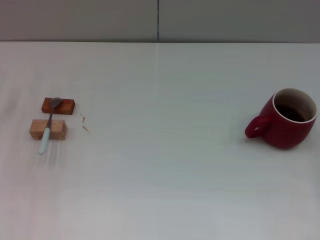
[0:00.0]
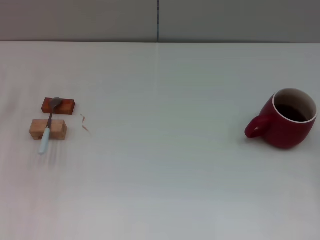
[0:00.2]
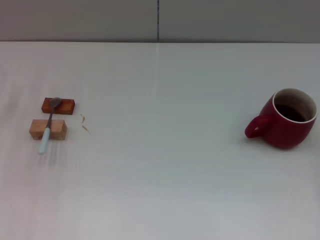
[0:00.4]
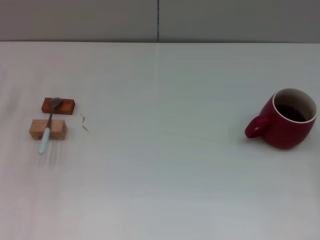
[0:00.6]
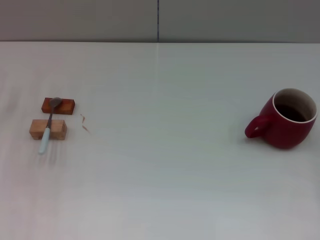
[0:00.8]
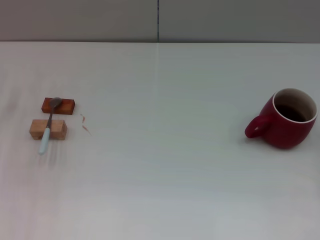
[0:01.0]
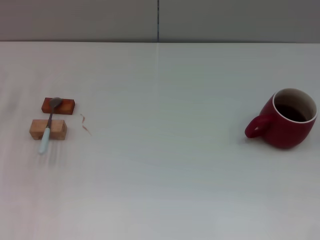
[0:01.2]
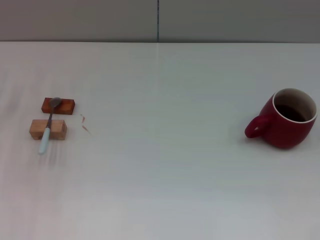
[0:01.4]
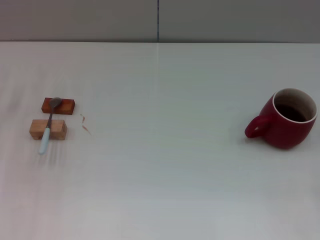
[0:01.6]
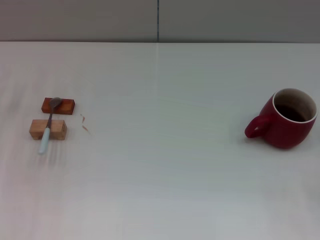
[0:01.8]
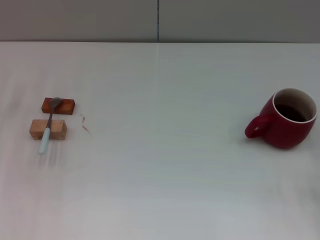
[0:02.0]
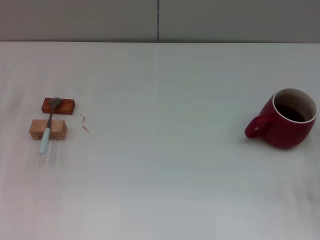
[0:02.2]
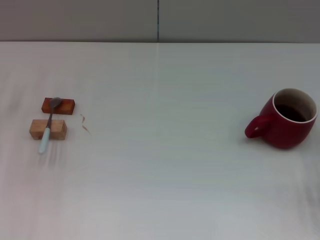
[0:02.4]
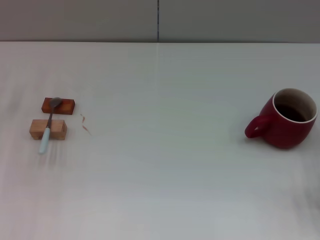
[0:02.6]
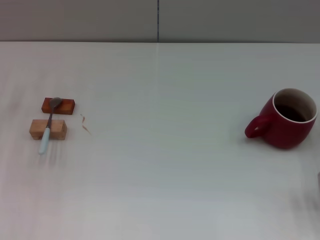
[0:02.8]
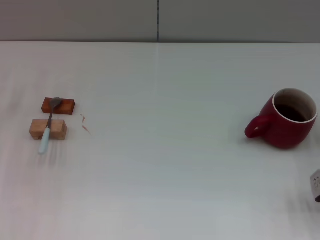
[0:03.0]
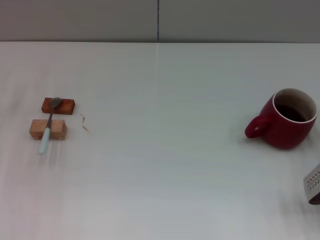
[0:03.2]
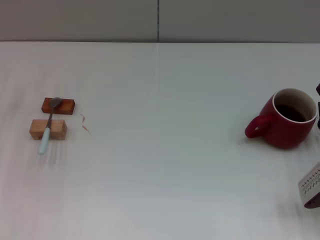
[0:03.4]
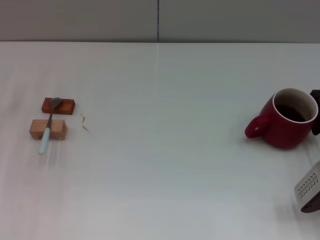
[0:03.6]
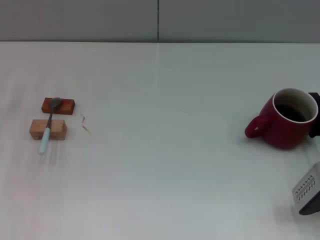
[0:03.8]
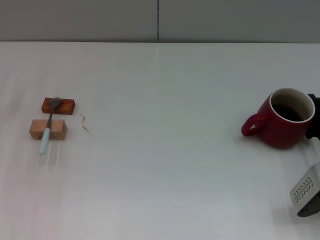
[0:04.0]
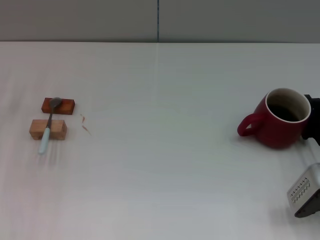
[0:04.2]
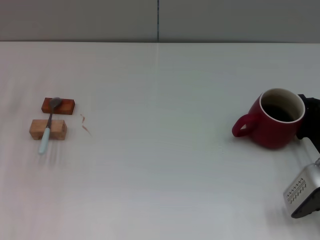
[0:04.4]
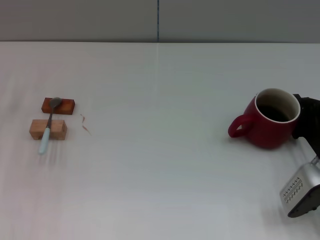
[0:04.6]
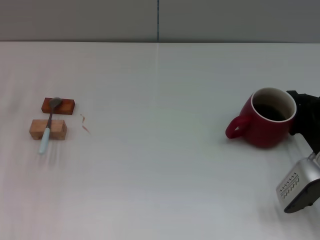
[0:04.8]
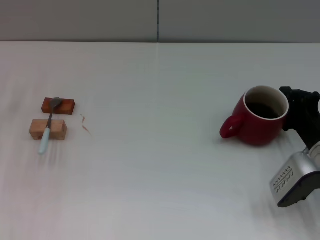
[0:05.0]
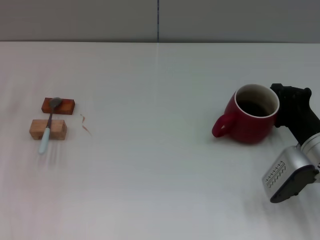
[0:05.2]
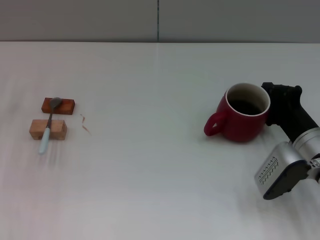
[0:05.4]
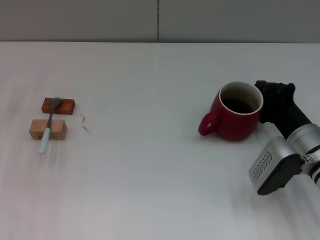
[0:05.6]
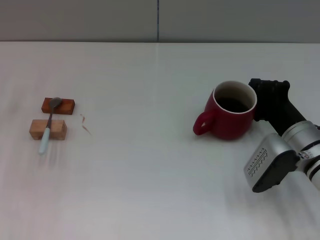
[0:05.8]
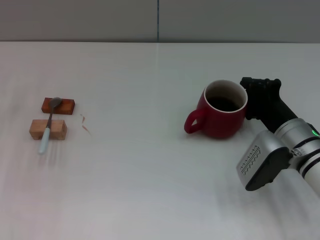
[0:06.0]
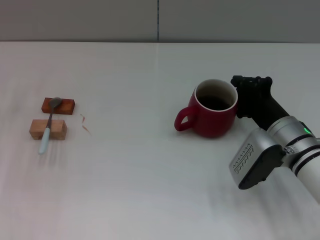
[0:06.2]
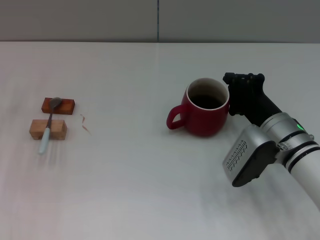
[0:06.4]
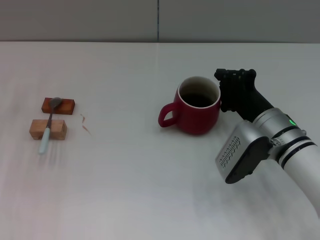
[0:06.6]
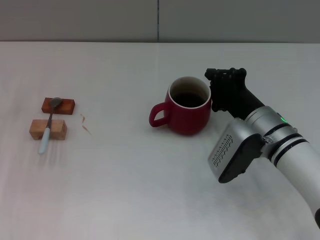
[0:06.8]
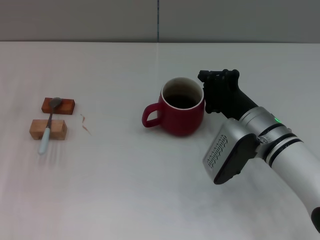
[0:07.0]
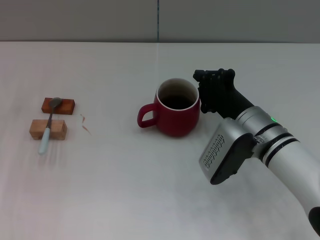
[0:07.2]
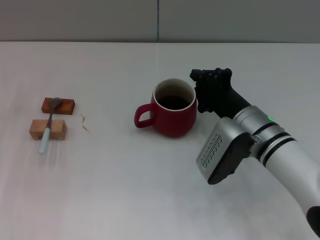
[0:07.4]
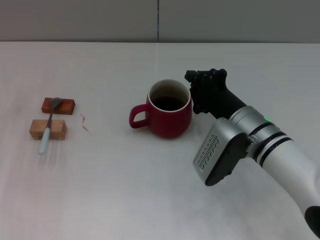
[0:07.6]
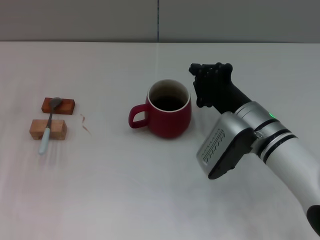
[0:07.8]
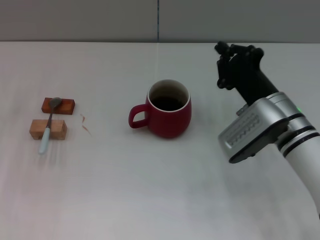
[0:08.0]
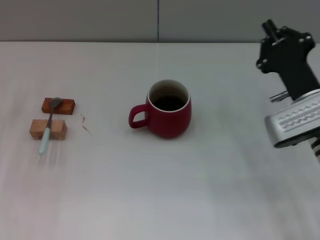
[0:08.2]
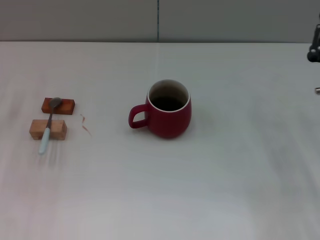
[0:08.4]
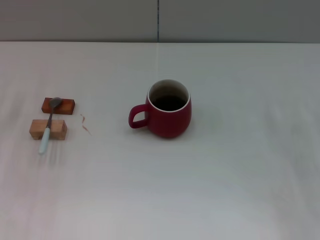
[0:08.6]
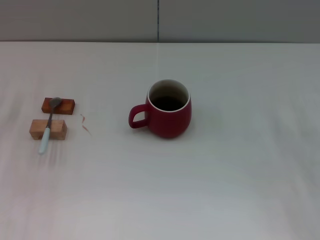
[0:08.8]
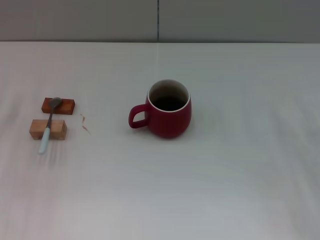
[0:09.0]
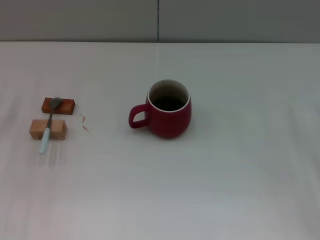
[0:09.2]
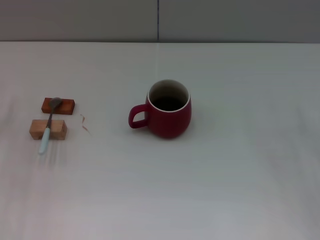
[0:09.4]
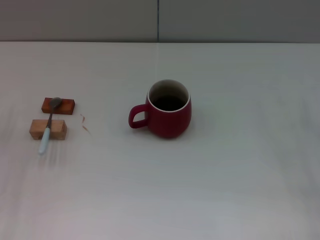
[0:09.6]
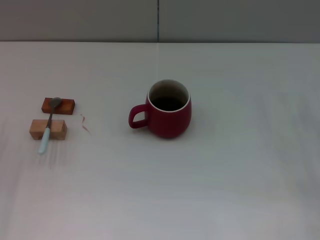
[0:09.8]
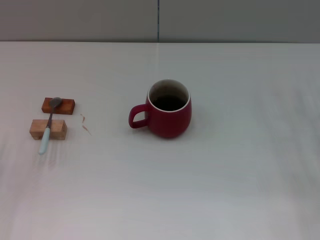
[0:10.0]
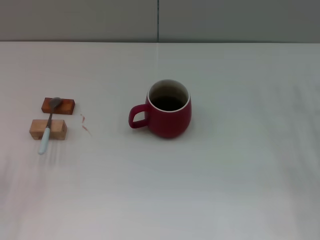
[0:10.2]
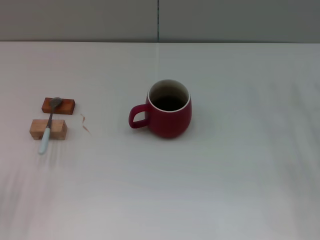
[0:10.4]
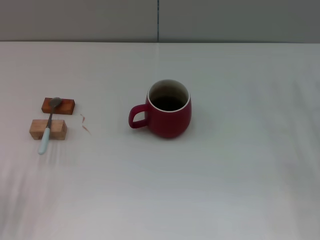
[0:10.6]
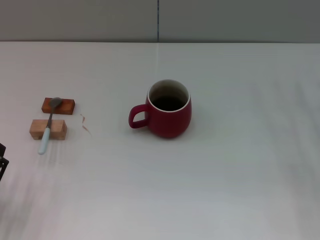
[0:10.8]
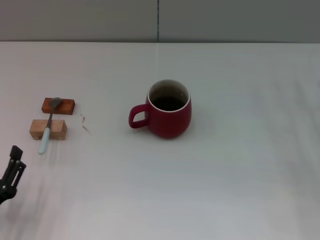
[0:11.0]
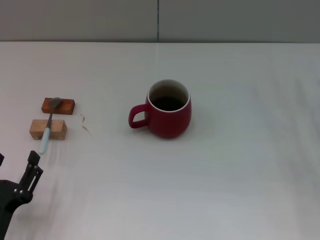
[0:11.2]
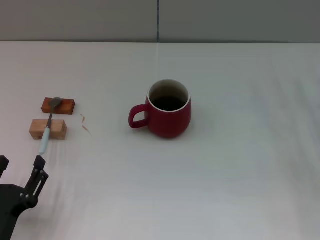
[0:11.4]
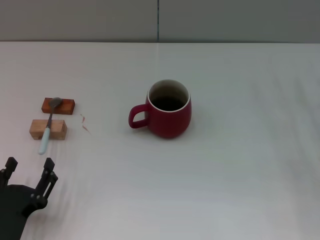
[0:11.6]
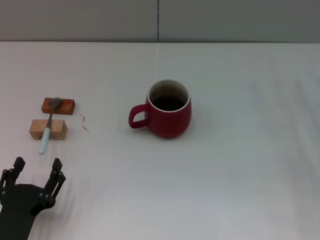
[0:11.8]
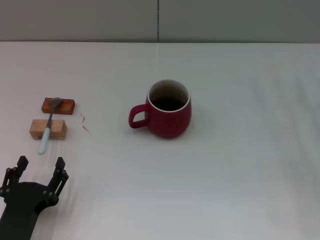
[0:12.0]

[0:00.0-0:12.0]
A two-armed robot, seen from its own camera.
Task of the whole recording: Move the red cup to the center, lift the blue spoon, stir it three times in the cup, and put the spoon into the cup.
Step, 0:00.0 to 0:07.8: Move the cup with coffee to the center of view with the right gripper.
0:01.6 to 0:03.0: The right gripper is displaced to the left by about 5 cm.
0:03.0 to 0:04.4: The grippers stay close to where they were, moving slightly.
0:04.4 to 0:06.0: The right gripper travels to the left by roughly 5 cm.
0:06.0 to 0:07.6: The right gripper shifts approximately 5 cm to the left.
0:07.6 to 0:09.0: The right gripper shifts approximately 20 cm to the right, and opens up.
0:10.4 to 0:12.0: The left gripper heads to the right, covering roughly 10 cm.

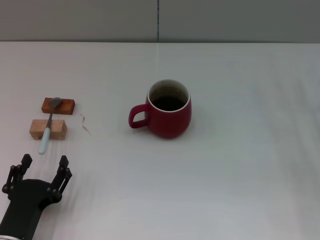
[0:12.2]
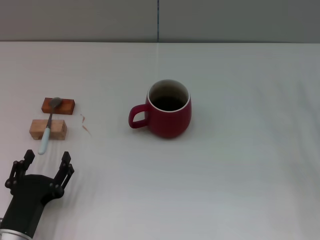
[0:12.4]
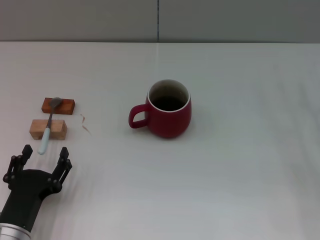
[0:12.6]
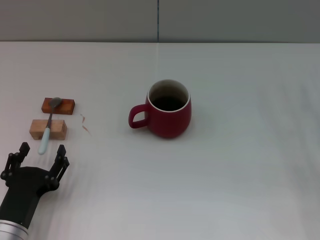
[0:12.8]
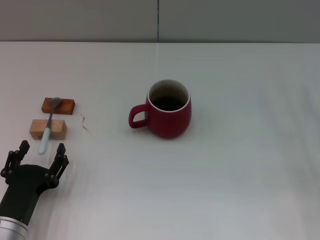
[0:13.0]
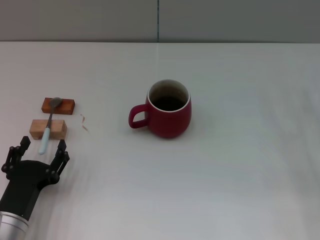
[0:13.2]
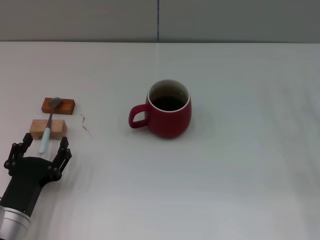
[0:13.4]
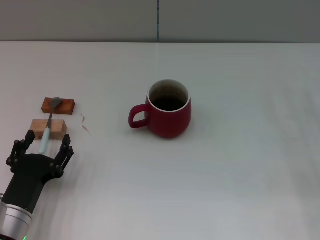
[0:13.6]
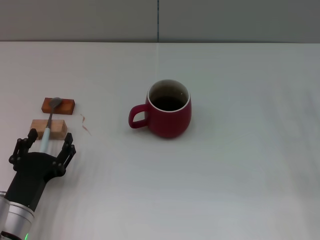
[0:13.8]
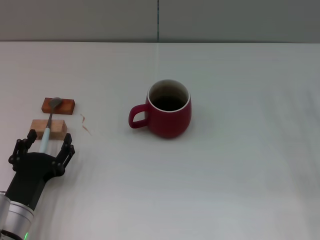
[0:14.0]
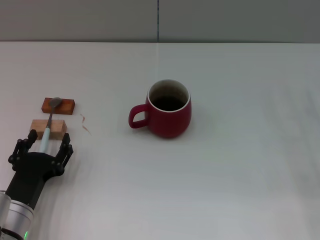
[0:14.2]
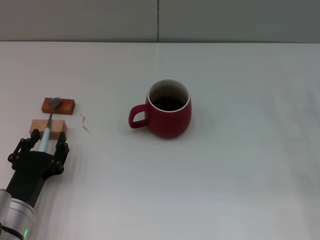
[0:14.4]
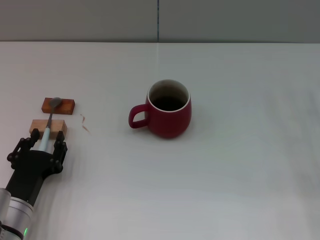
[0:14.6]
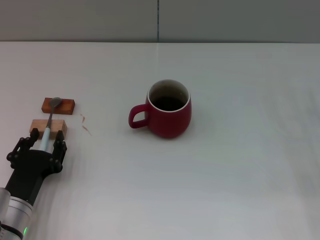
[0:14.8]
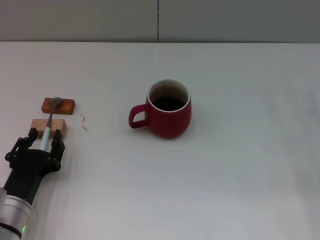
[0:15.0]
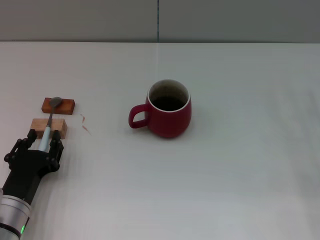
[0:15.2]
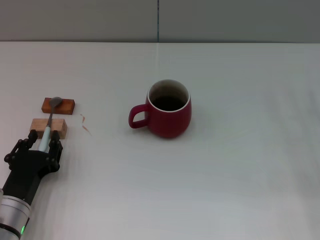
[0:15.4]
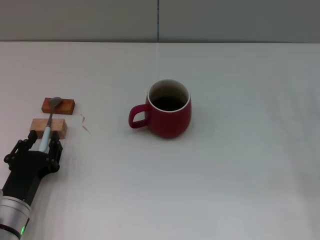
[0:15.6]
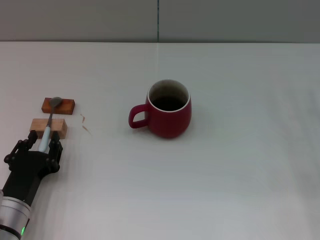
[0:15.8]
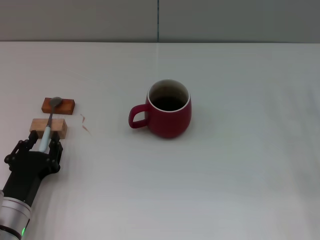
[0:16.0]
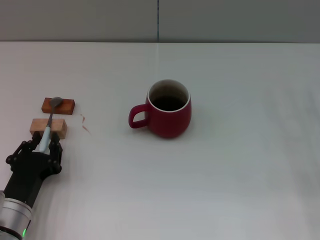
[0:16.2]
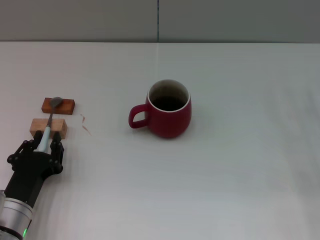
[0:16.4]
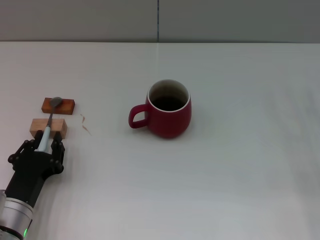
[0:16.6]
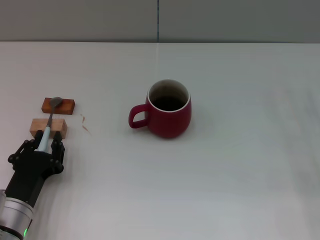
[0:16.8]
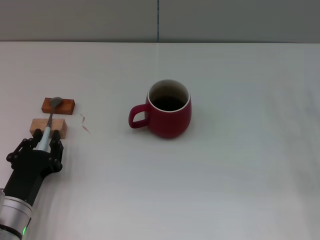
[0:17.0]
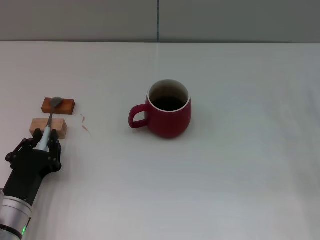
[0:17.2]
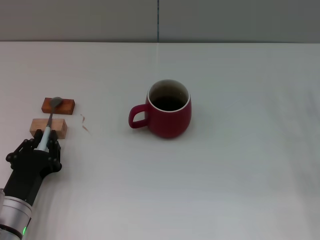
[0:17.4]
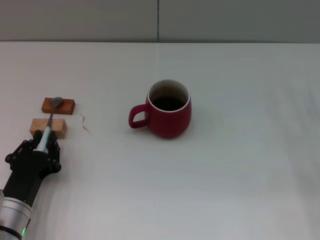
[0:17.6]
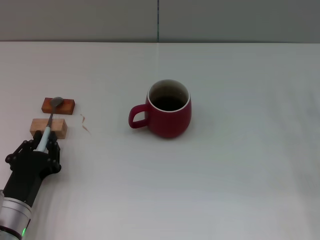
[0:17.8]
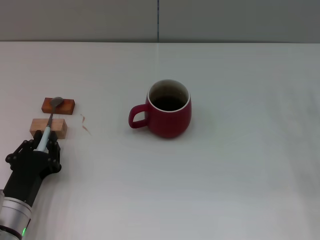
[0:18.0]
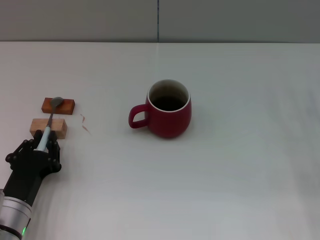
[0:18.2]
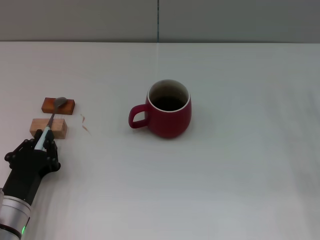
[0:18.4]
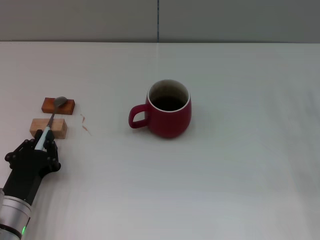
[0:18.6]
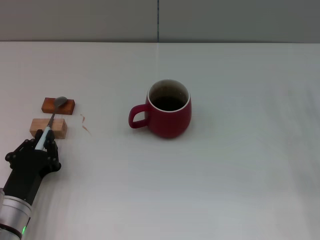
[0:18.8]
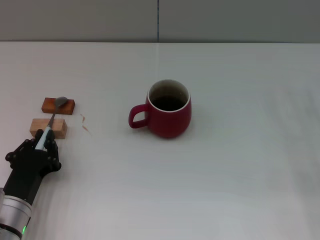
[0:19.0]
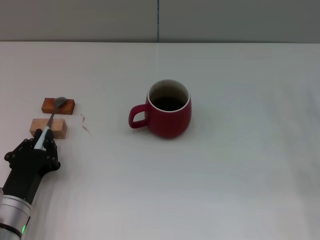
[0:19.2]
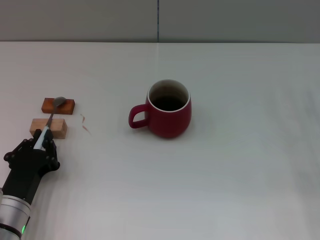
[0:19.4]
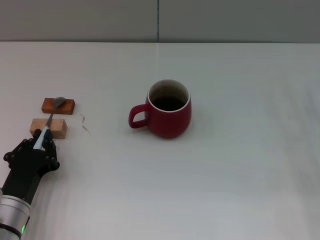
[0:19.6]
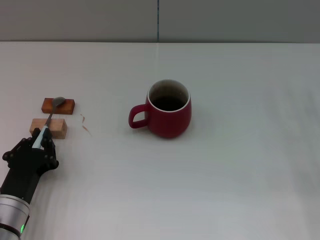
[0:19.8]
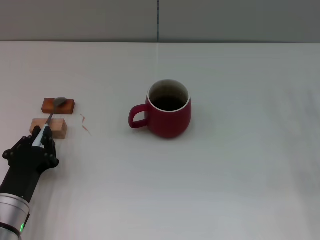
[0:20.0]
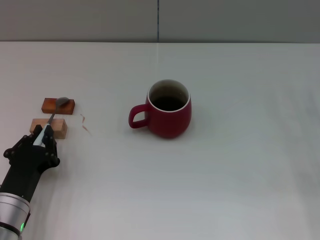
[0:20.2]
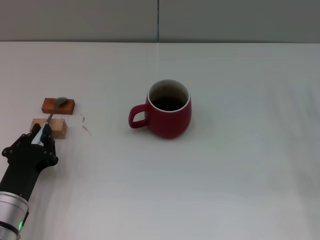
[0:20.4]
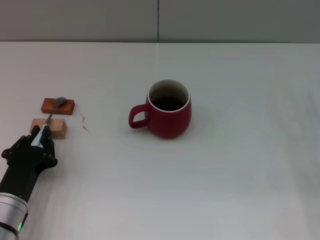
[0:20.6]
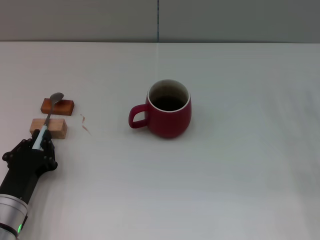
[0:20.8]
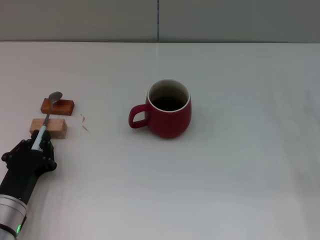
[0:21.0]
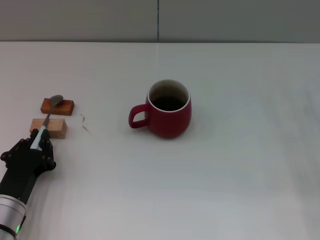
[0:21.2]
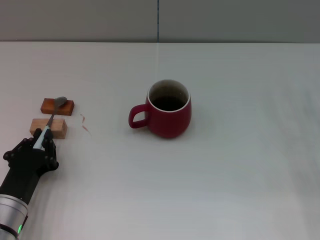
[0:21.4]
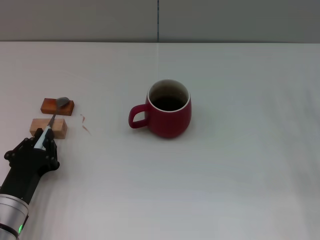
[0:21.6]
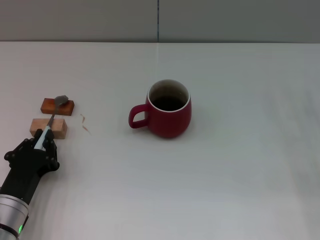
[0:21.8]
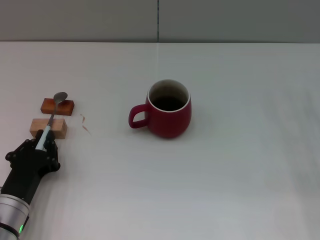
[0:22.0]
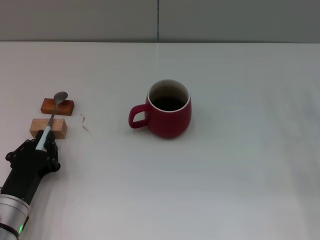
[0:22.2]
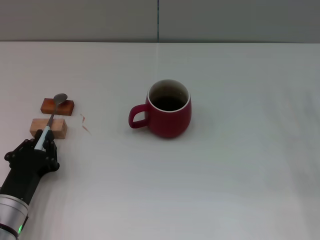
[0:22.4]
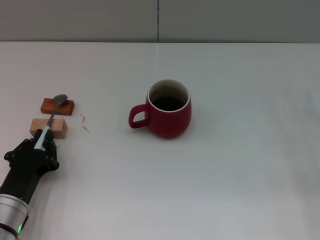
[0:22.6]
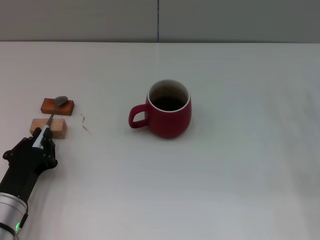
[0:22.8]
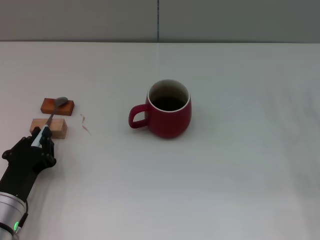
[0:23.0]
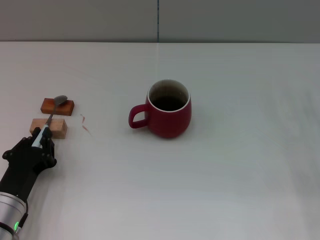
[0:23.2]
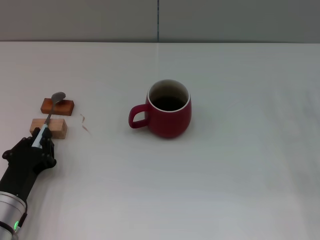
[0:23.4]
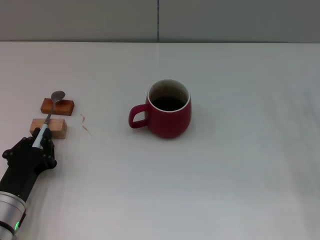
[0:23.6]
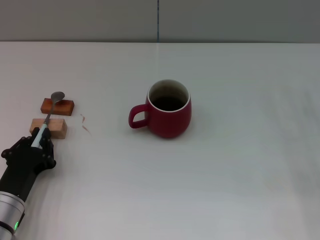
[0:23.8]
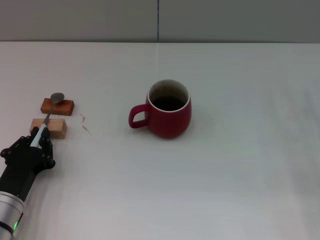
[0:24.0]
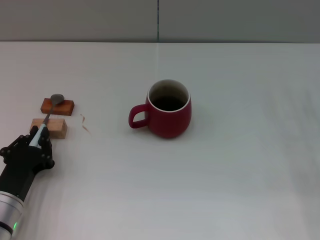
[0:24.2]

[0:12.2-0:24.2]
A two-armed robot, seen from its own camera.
Task of the whole recording: Move the red cup to the center, lift the blue spoon, stir it three times in the cup, and put the spoon into the cup.
0:12.2 to 0:15.2: There are only small adjustments of the grippers.
0:15.2 to 0:22.6: Both grippers stay about where they are.
0:22.6 to 0:24.2: There are only small adjustments of the grippers.
